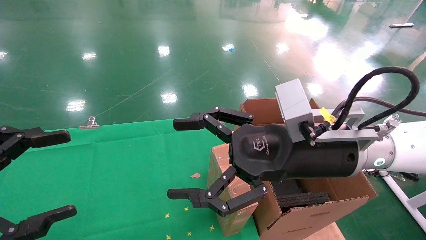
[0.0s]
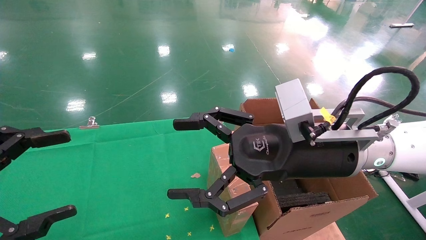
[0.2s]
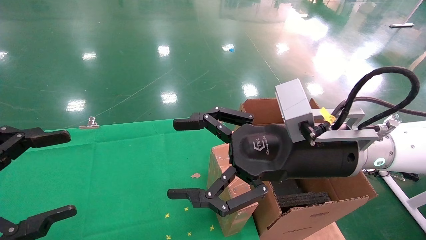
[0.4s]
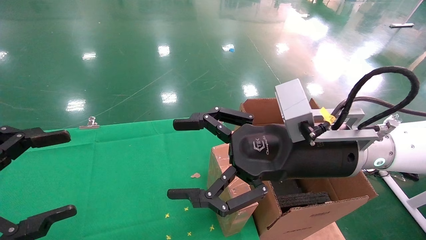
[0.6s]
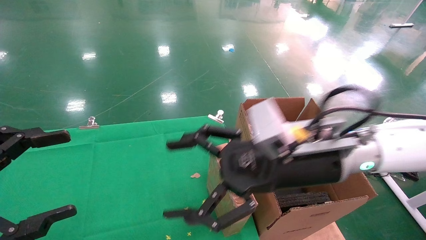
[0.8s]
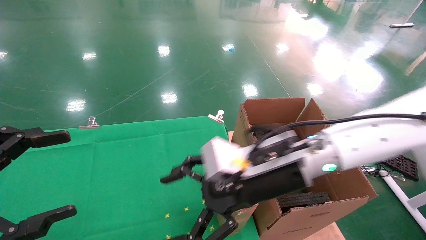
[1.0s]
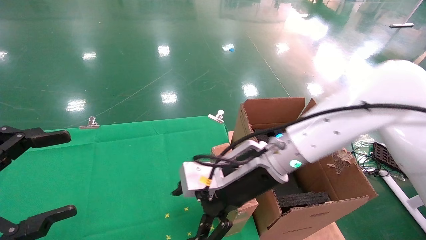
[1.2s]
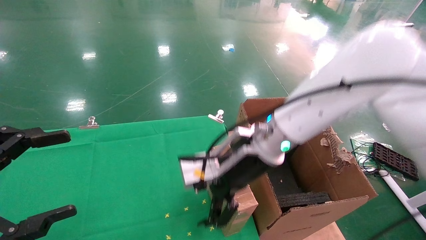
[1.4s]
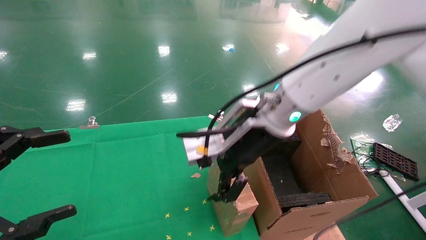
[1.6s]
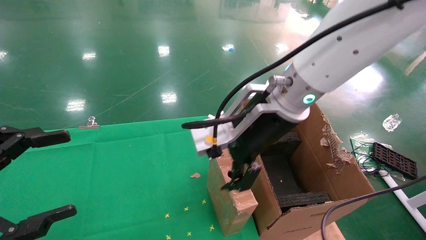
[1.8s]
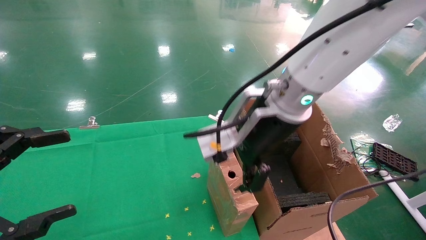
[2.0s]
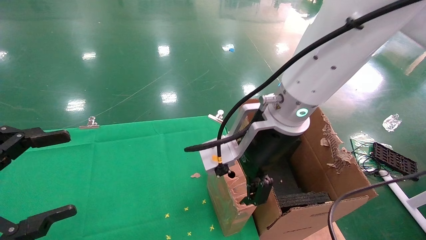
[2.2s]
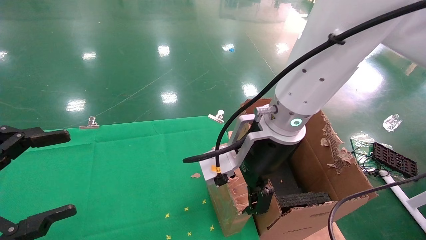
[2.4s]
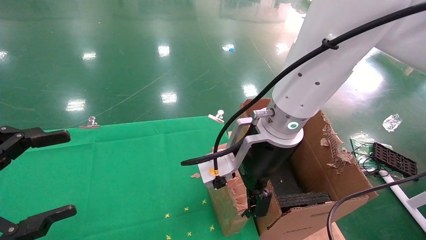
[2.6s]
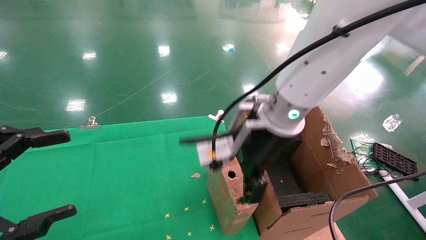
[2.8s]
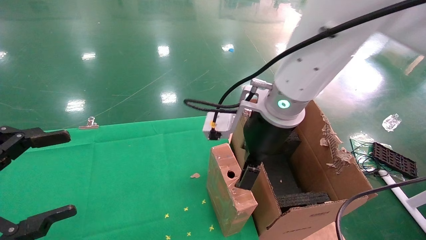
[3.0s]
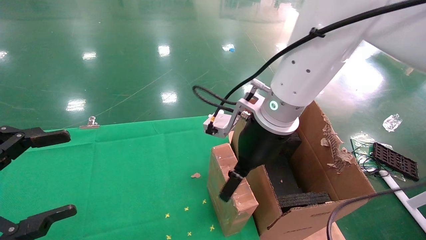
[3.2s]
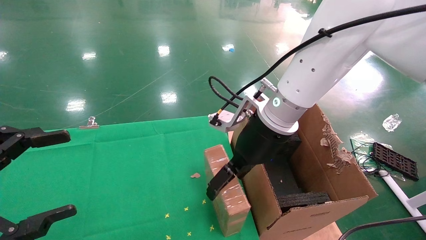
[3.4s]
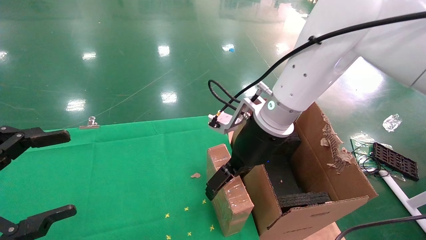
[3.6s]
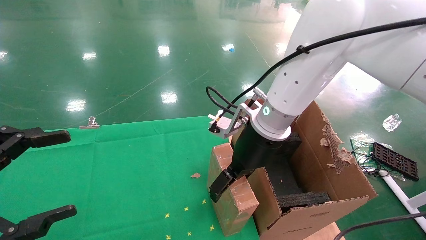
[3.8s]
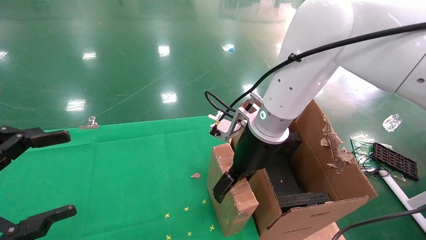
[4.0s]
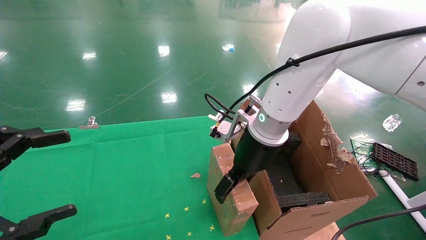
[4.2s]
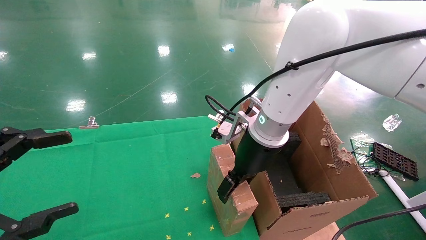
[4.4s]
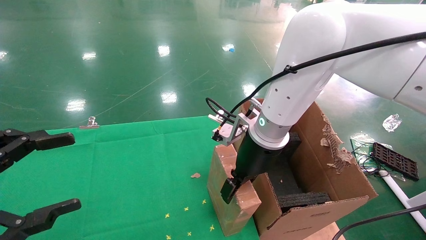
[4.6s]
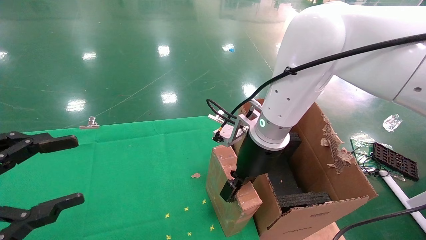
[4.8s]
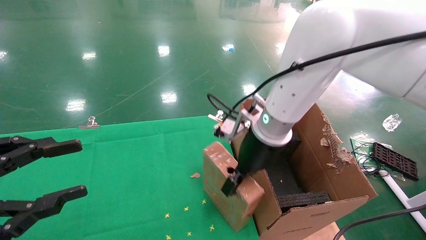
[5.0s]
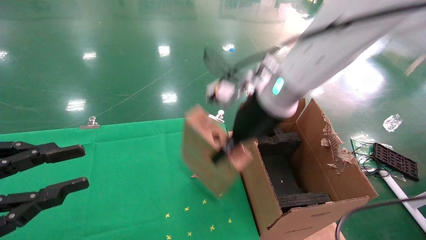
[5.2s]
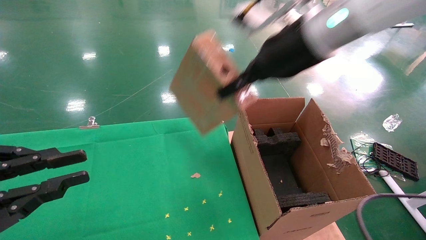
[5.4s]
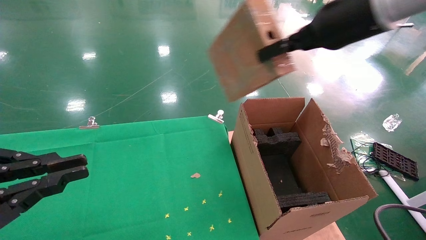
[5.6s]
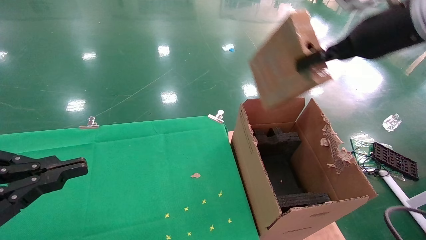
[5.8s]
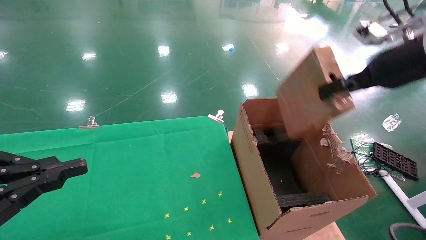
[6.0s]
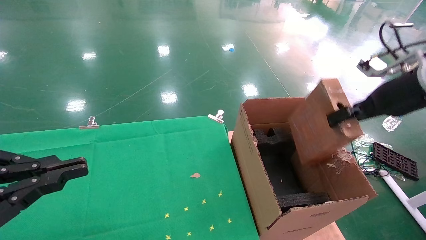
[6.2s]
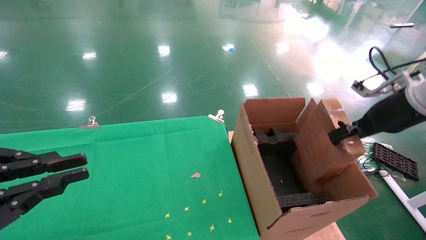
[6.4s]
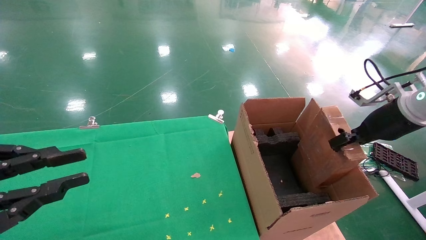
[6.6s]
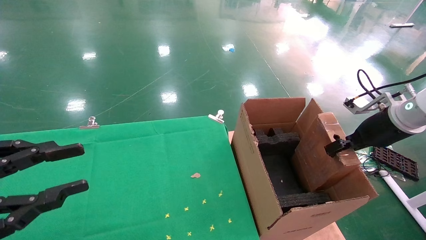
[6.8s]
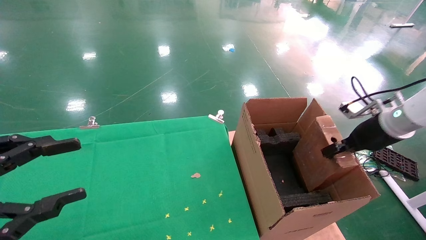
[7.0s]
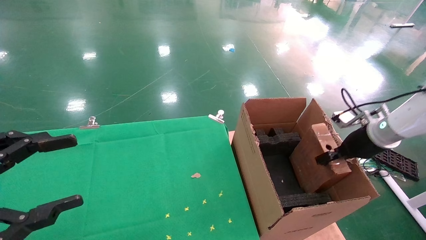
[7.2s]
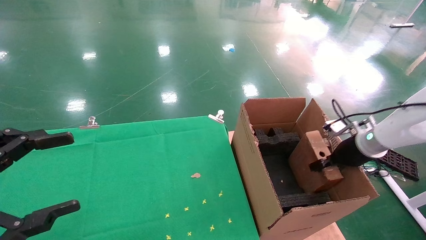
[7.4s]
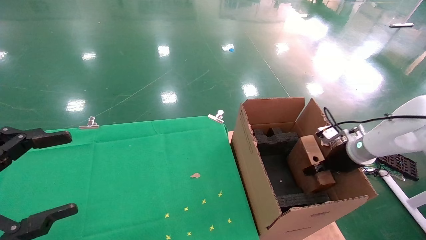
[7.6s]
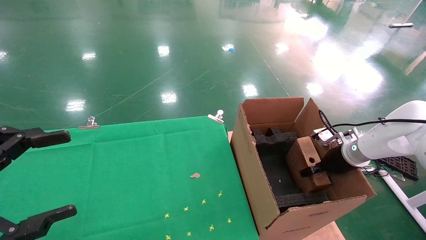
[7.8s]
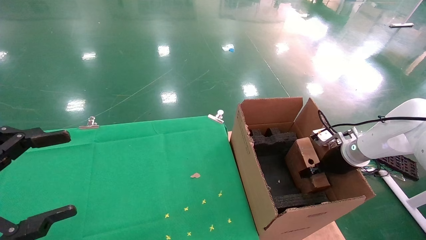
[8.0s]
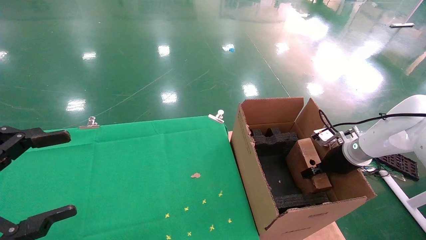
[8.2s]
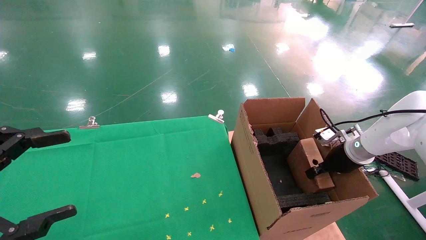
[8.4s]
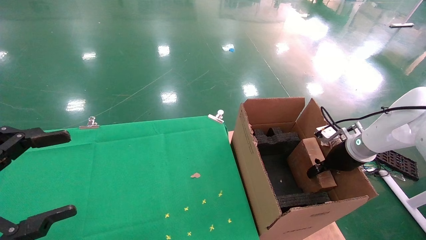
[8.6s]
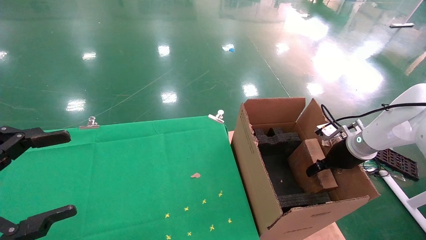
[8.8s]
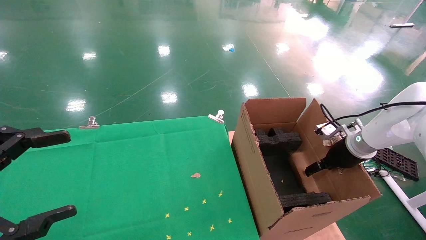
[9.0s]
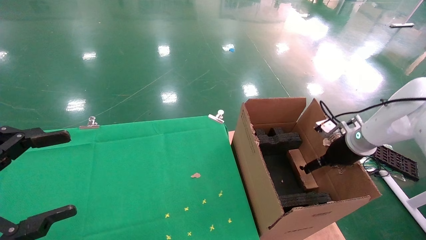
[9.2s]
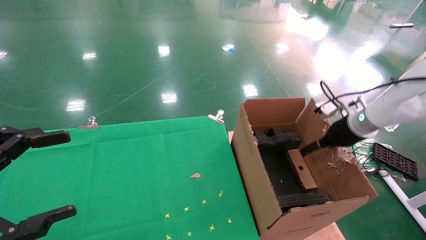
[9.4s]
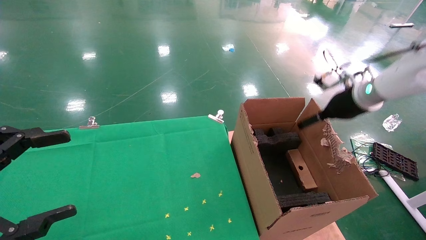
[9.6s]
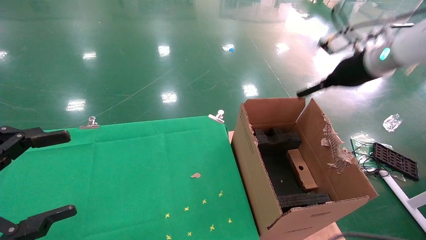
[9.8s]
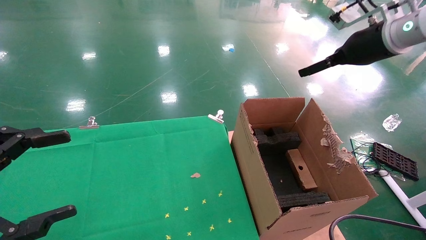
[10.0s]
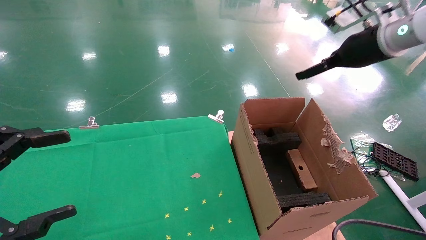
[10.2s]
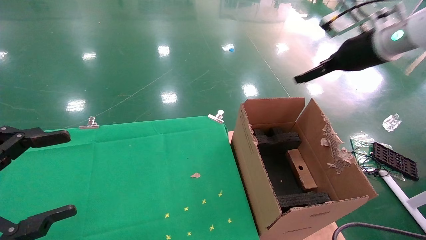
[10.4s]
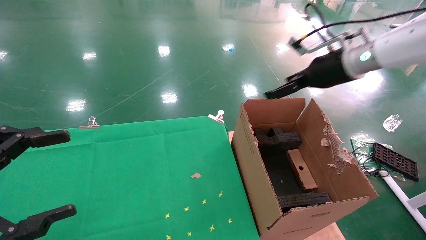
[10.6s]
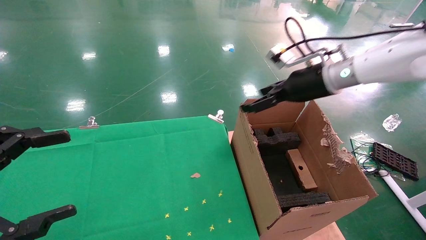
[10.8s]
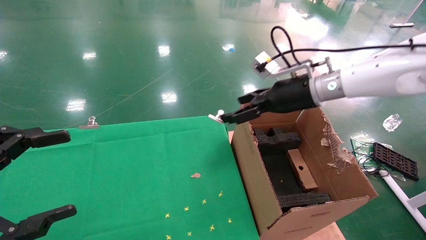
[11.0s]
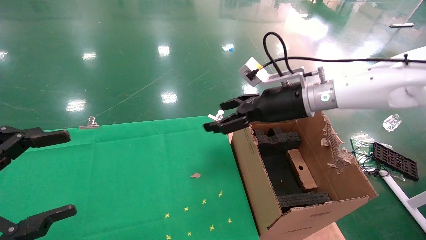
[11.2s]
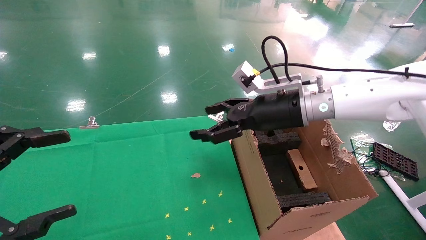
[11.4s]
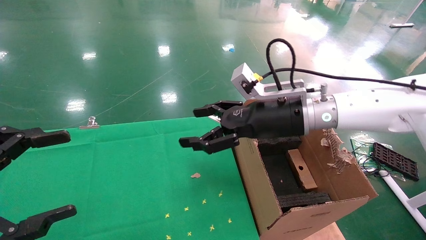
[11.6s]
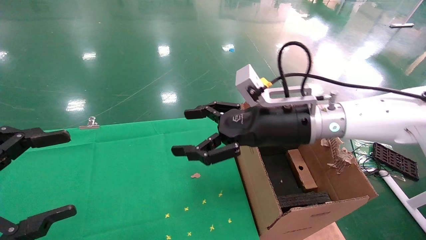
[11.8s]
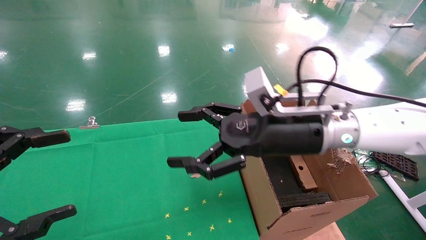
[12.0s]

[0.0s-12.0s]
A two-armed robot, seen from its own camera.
Task of the whole recording: using a robotic arm to pick up a cardboard box and palace it the carton.
Step, 0.8s to 4.6s: Pick up the mouse and the power cord paper box.
Step, 4.8s to 9.6s: Place the mouse and the power cord paper box into the container.
0.0s to 1.6s: The right gripper is displaced to the left and forward by approximately 10 cm.
3.0s to 4.4s: The right gripper moves approximately 5 cm.
4.4s to 6.0s: The right gripper moves to the right and upward, approximately 30 cm, and closes up; the left gripper closes up.
6.0s to 7.6s: The left gripper opens its fingers; the right gripper goes approximately 25 cm downward.
7.6s to 9.0s: The right gripper opens its fingers.
9.0s to 10.4s: The right gripper goes approximately 25 cm upward, and opens.
10.4s to 12.0s: The right gripper moves to the left, downward and backward, approximately 25 cm.

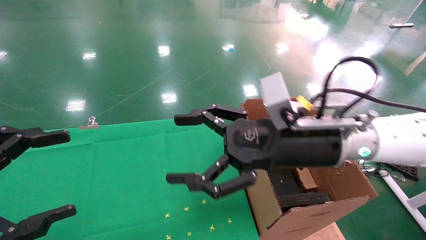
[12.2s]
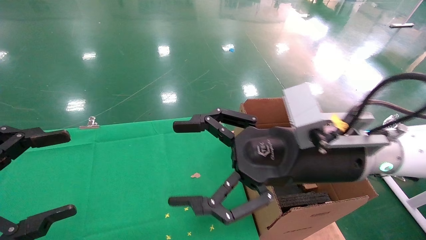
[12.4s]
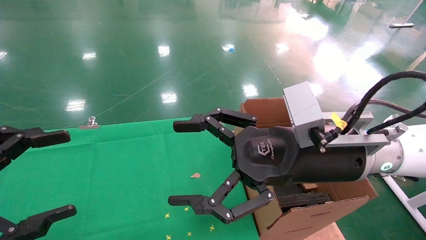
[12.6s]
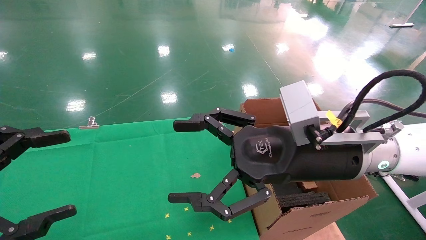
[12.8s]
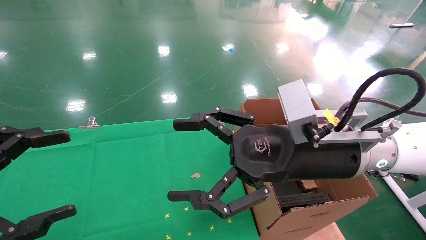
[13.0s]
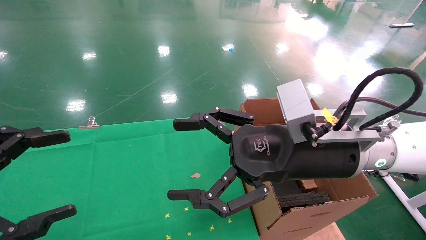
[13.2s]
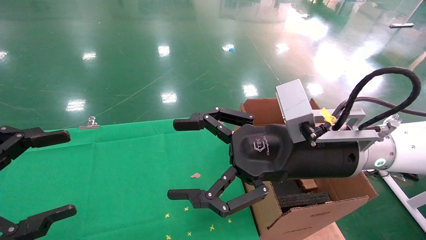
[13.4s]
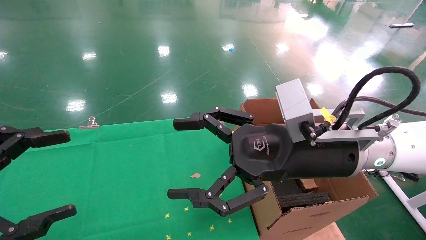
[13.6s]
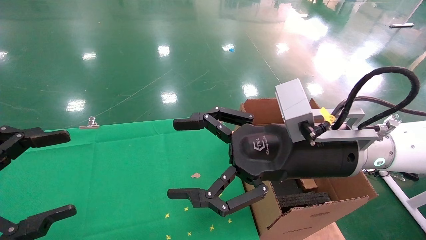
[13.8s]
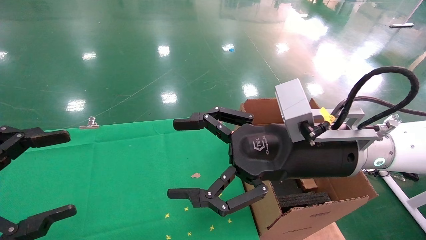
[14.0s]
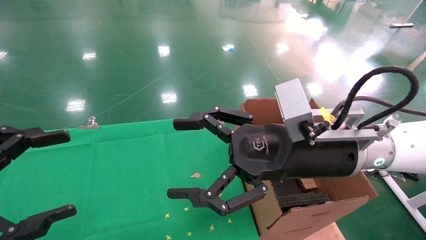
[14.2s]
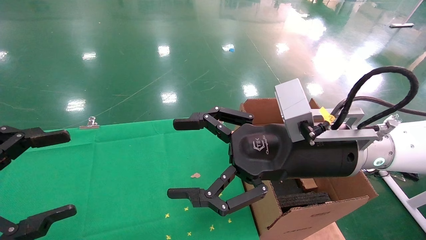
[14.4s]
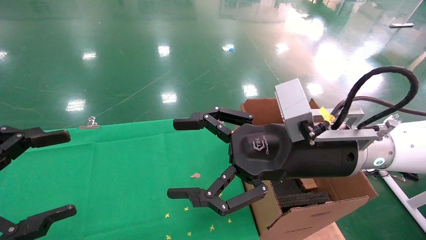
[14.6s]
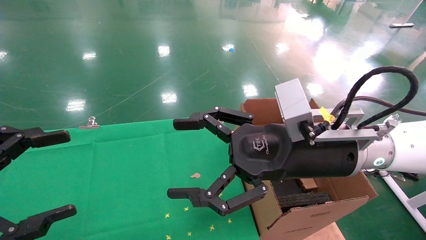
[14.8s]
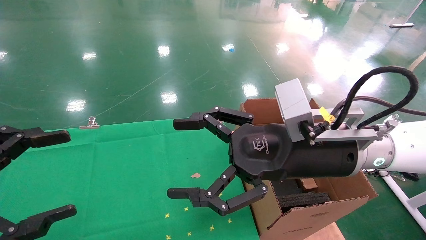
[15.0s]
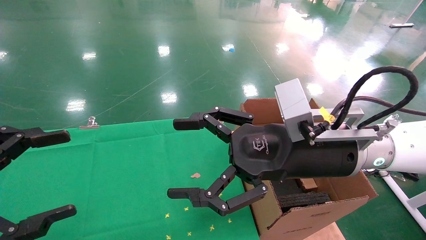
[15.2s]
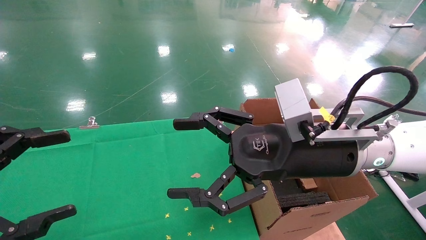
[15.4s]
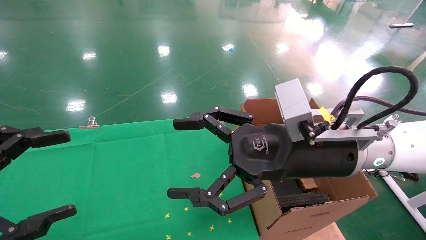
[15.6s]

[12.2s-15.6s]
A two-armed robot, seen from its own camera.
Task of the whole recording: using a robotic arm to pick up a cardboard box and palace it the carton.
12.2s to 13.8s: The grippers move only a little.
13.8s to 15.6s: Neither gripper changes place.
